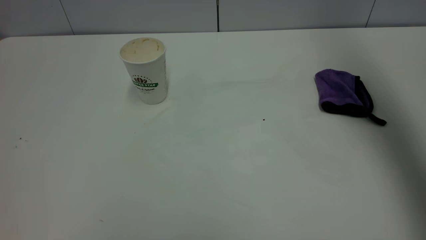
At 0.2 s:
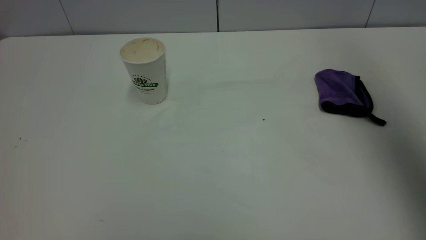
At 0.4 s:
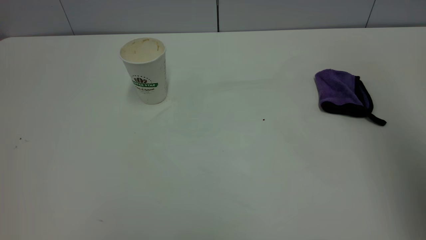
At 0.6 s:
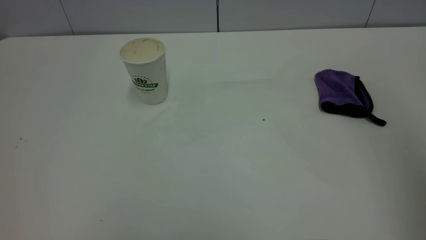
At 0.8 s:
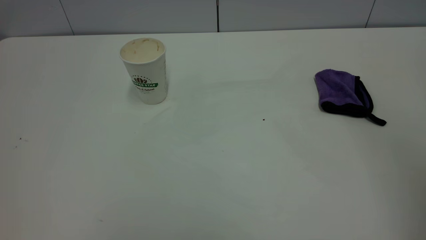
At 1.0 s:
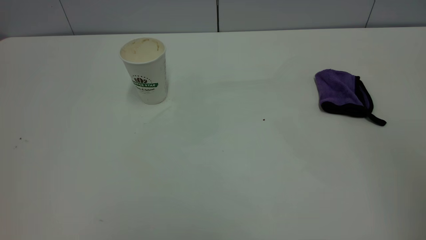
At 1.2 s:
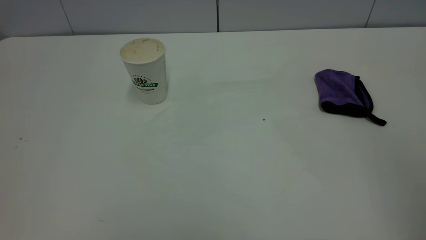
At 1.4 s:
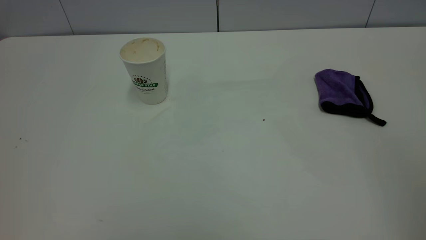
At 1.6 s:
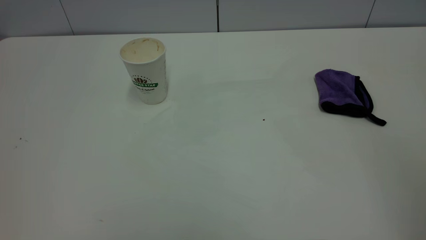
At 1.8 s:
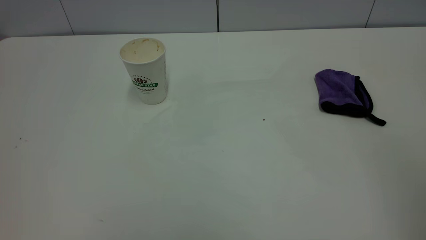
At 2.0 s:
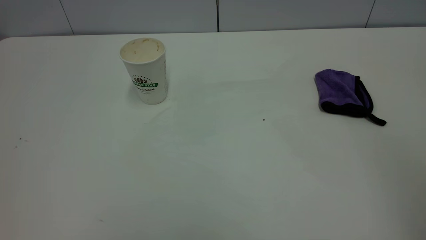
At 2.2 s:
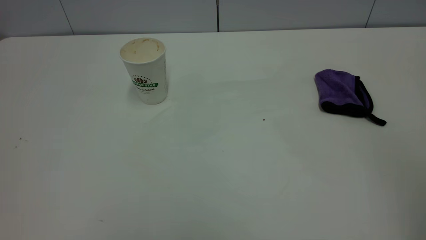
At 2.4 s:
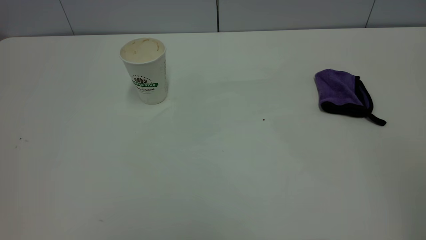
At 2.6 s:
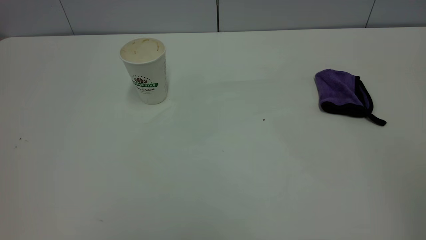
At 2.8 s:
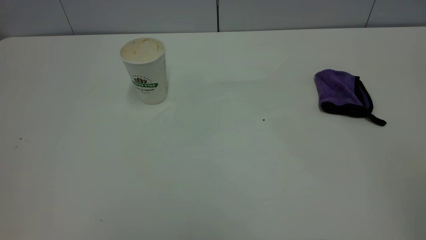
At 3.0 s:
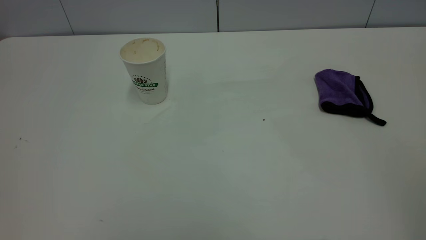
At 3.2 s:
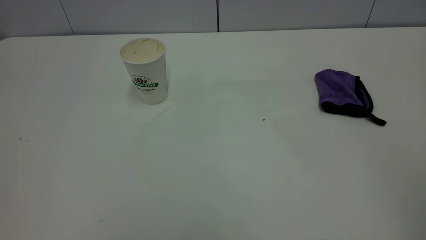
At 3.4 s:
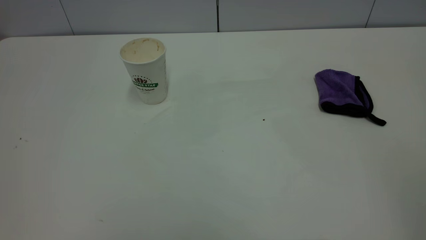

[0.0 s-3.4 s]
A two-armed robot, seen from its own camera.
Task of the whole recording: the left gripper pick up the fallen cup and place it upright, the right gripper grasp the purple rag and wipe the coffee stain on the table, the right gripper put the purple rag back in its original position.
0.0 to 1.6 s: The right gripper is displaced backward by approximately 30 cm.
